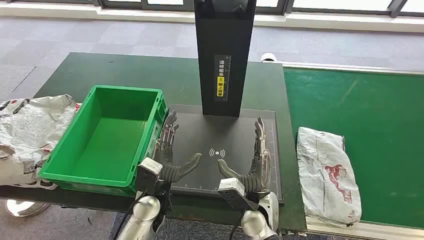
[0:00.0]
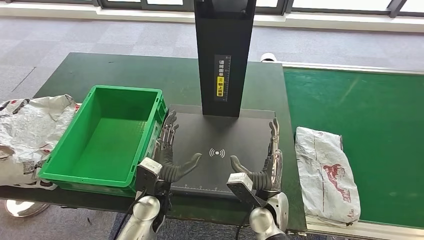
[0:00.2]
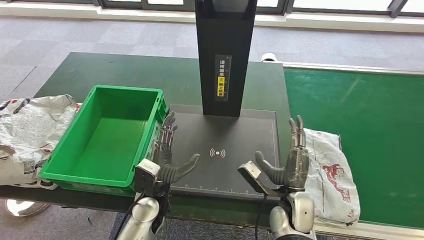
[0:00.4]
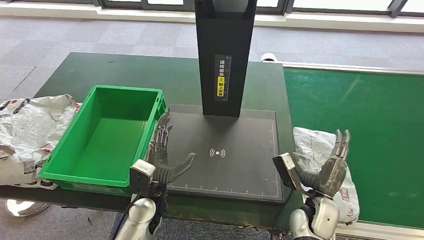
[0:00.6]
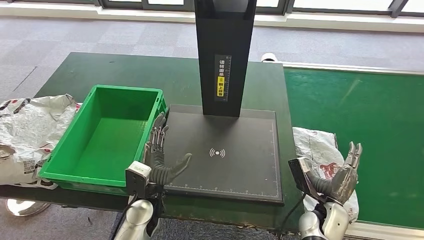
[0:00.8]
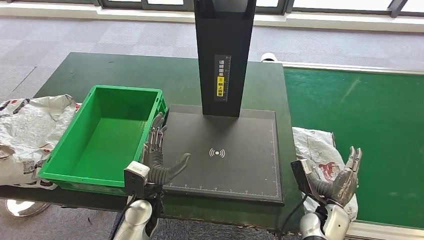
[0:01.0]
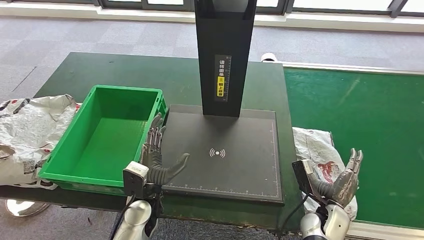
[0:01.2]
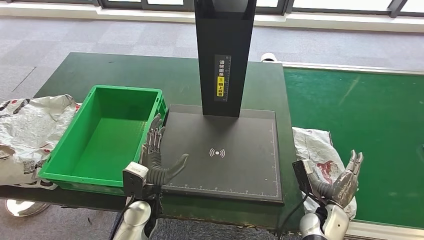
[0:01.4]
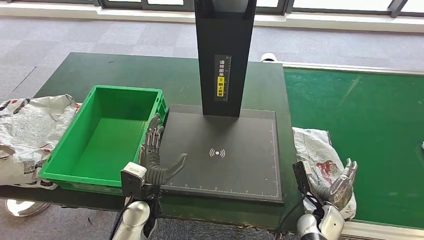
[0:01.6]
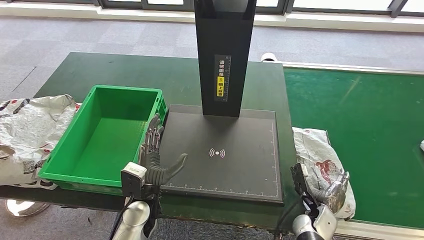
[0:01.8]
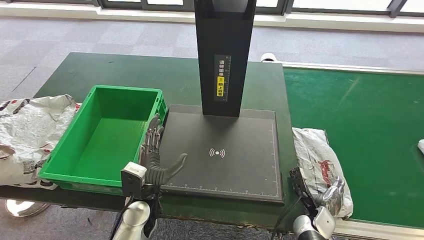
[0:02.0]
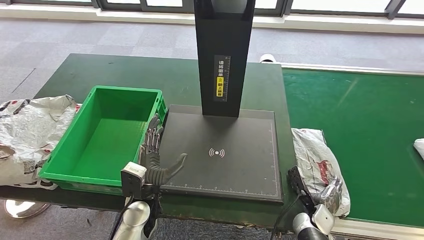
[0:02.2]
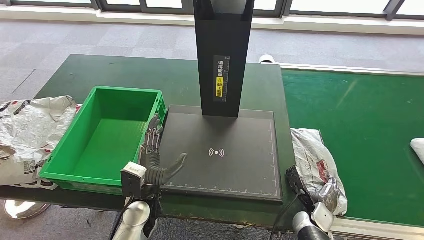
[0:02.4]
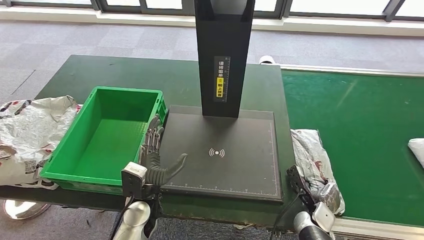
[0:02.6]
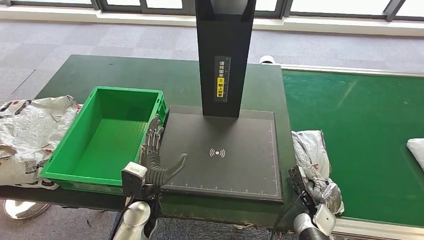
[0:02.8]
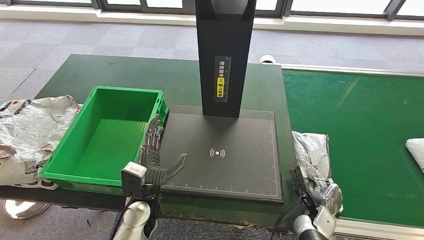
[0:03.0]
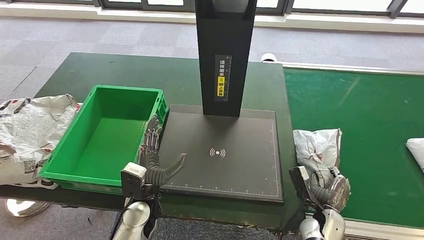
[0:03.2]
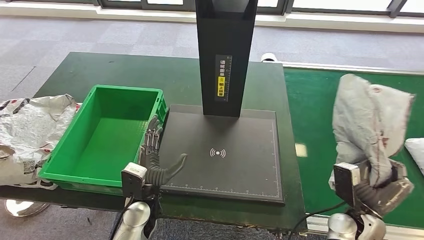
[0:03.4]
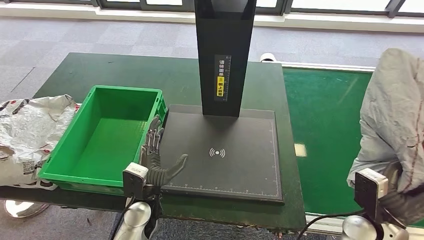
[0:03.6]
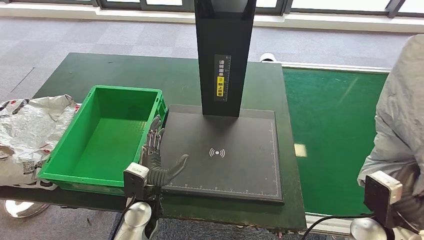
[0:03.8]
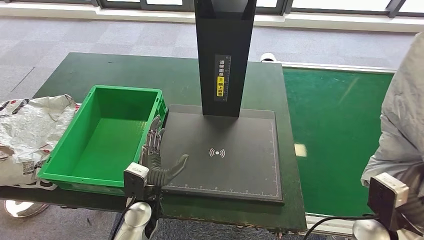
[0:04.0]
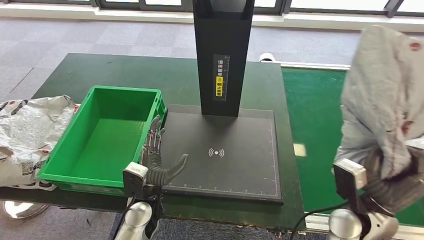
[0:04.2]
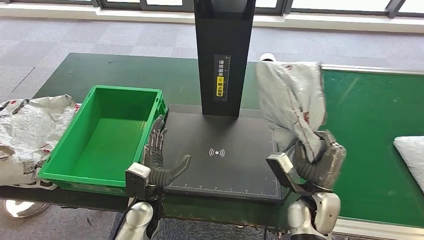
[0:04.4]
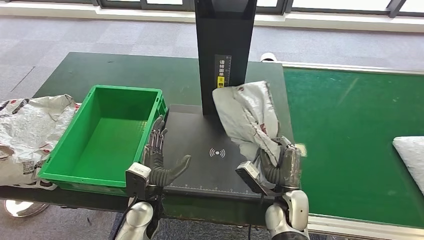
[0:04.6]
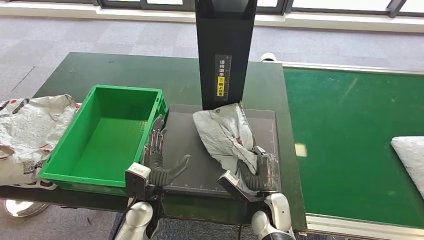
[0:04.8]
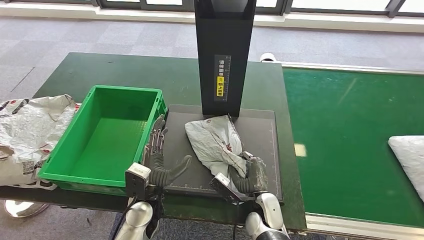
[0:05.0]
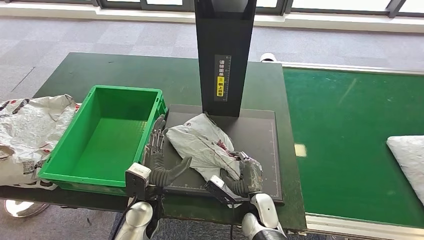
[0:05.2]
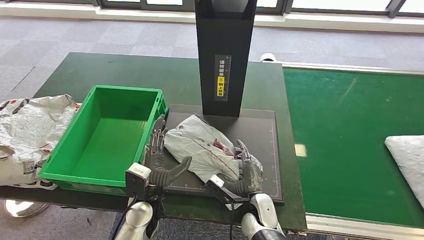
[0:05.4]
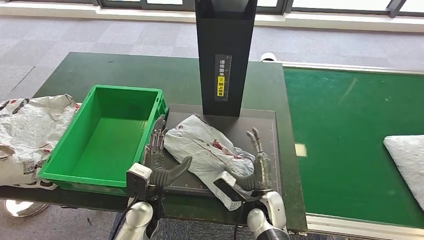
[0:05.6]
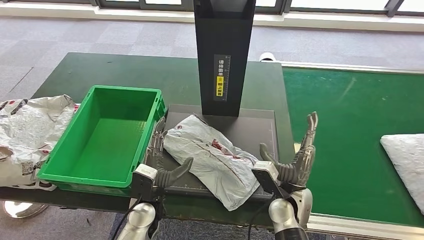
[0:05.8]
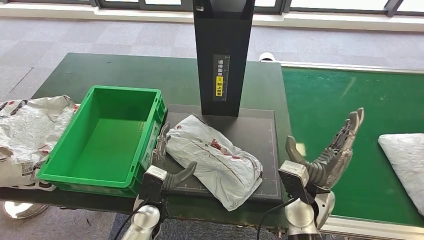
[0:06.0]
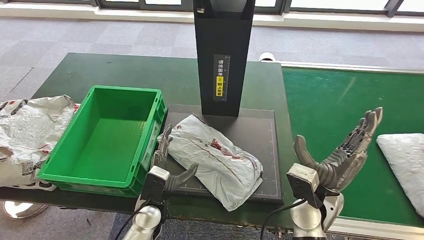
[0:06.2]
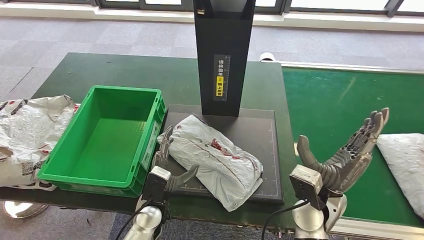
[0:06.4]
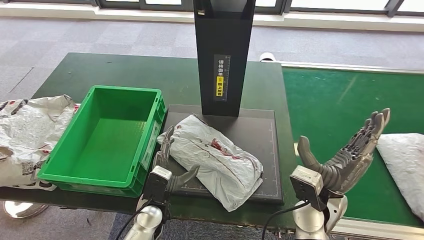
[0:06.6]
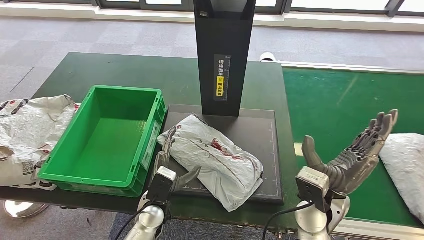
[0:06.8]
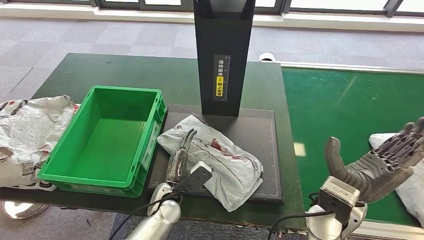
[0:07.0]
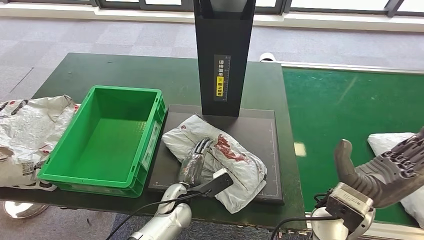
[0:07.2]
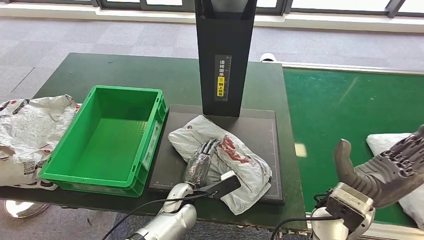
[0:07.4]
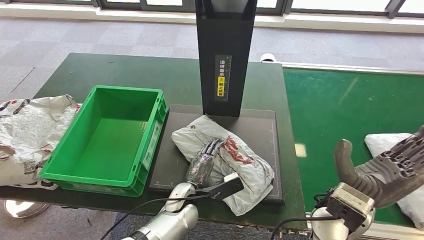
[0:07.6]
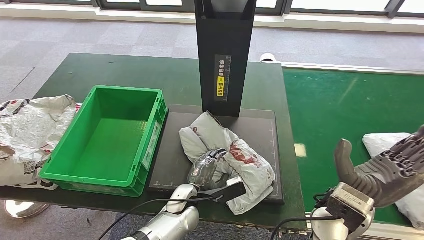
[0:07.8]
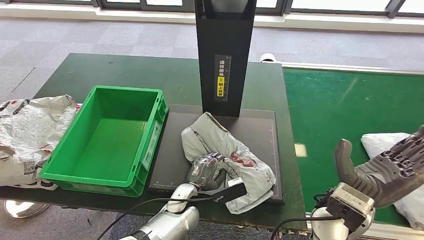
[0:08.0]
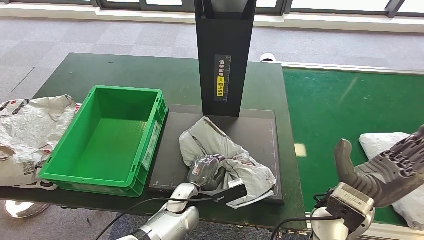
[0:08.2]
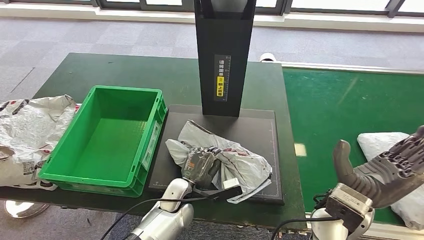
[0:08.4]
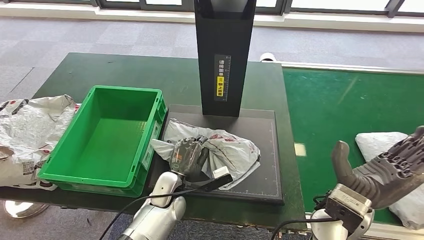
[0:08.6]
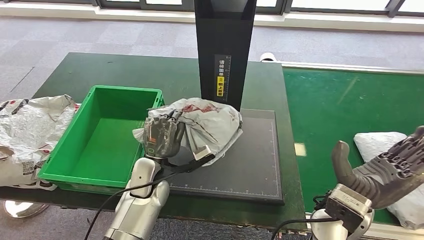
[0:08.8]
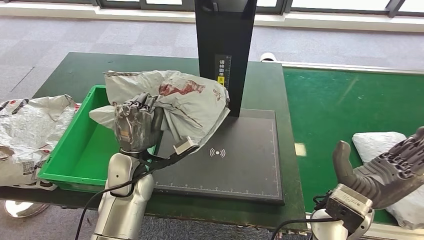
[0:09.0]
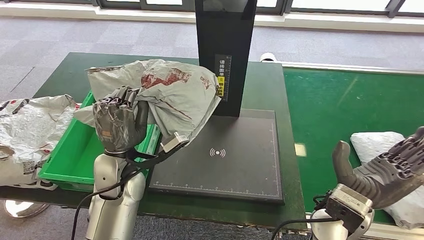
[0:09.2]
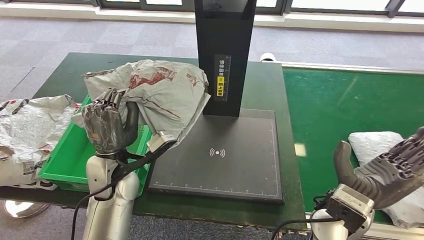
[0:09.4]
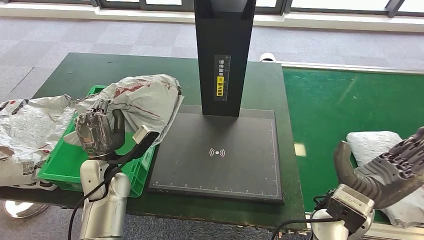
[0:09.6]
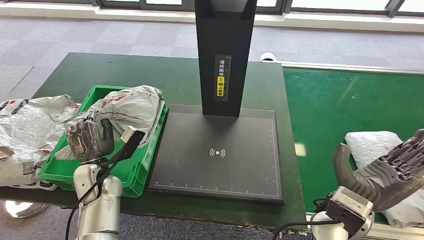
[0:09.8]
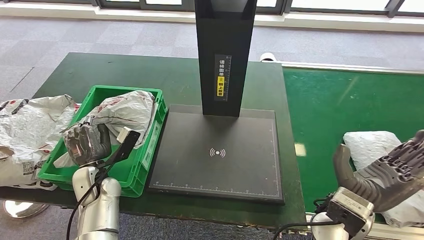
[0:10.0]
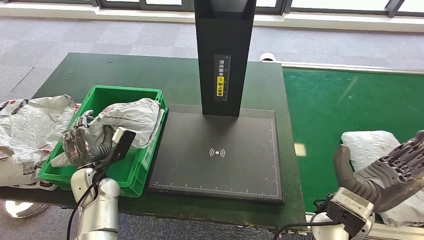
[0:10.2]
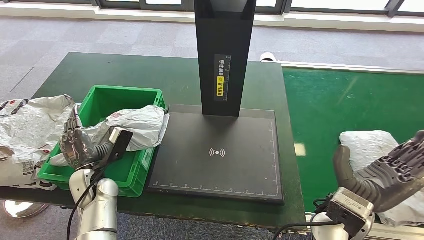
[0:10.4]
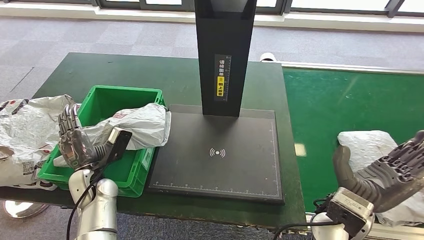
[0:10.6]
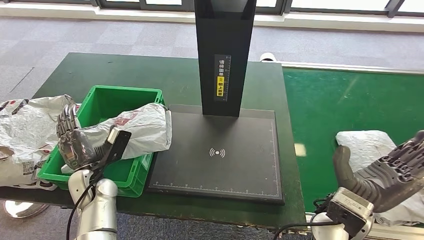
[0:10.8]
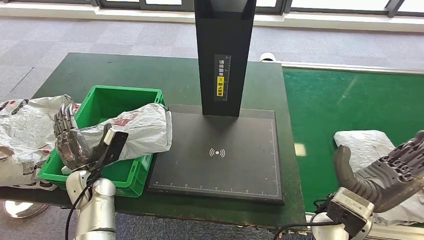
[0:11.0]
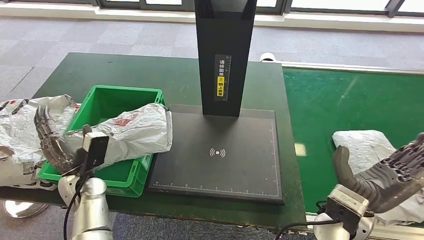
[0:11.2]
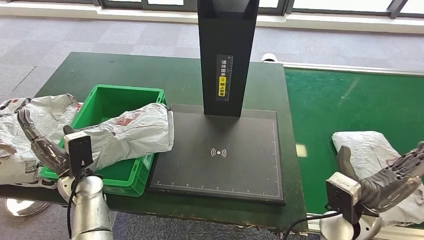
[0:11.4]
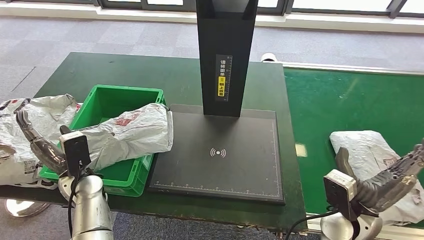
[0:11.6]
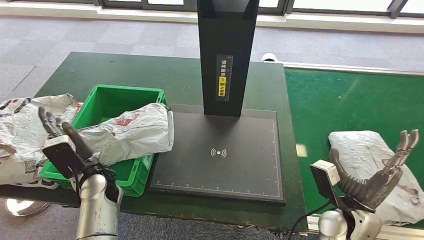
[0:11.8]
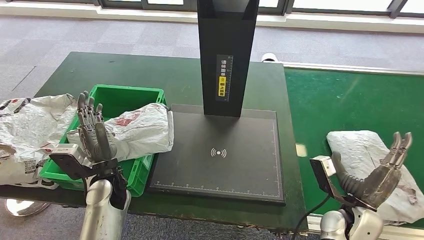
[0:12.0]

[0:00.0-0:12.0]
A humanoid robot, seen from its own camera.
Step, 0:00.0 to 0:04.4: Take the parcel off the conveyor belt.
Step, 0:04.6 to 0:07.4: Place the parcel onto the inbound machine.
Step, 0:07.6 to 0:09.0: Pick up the parcel from the inbound machine.
0:09.0 to 0:10.4: The left hand heads to the left and downward, covering approximately 15 cm.

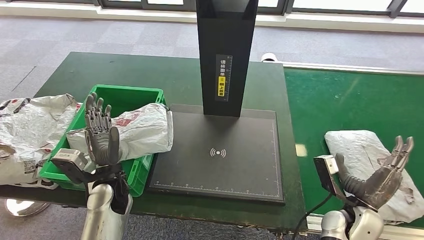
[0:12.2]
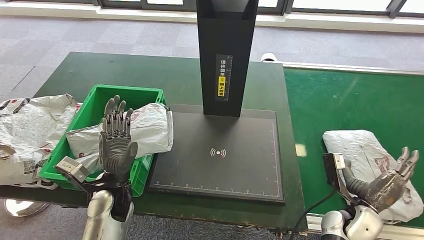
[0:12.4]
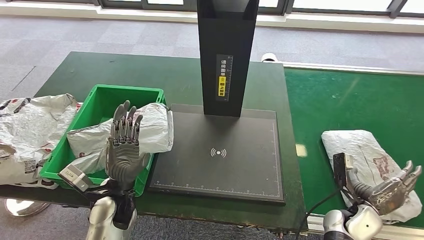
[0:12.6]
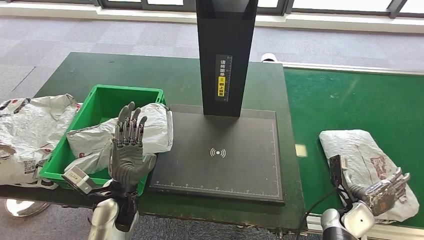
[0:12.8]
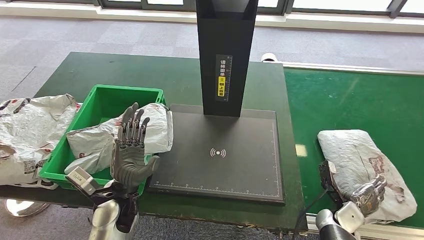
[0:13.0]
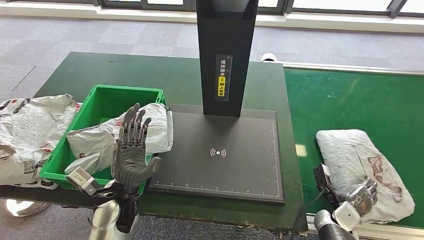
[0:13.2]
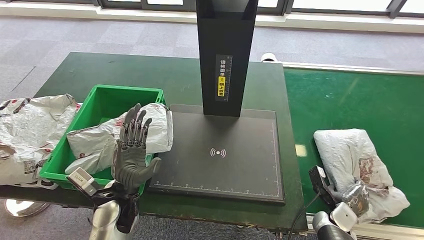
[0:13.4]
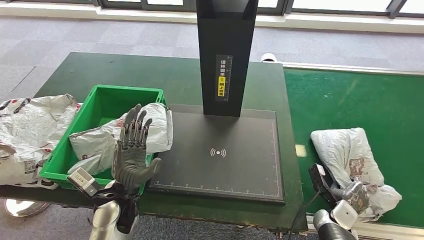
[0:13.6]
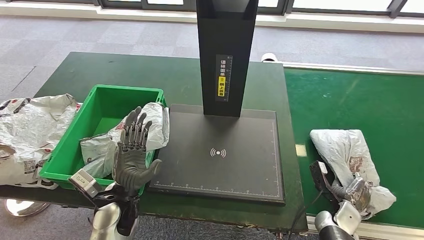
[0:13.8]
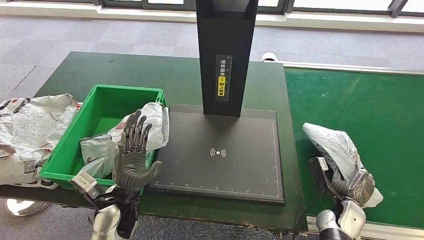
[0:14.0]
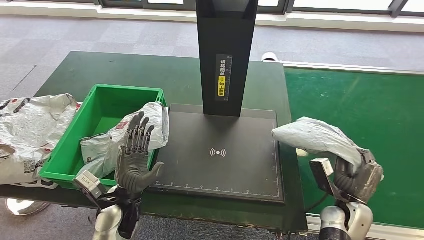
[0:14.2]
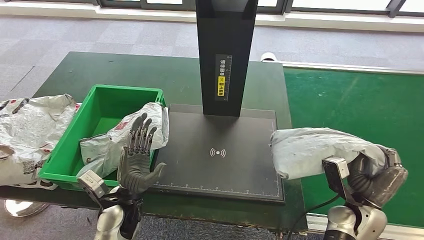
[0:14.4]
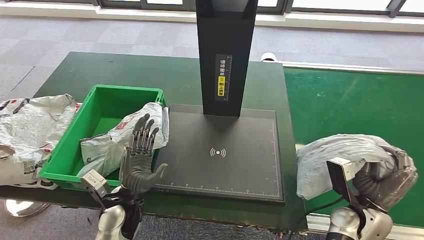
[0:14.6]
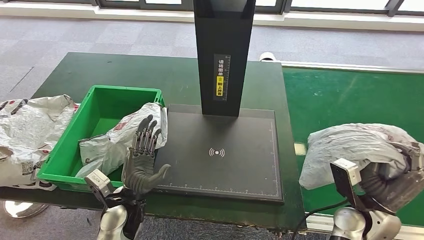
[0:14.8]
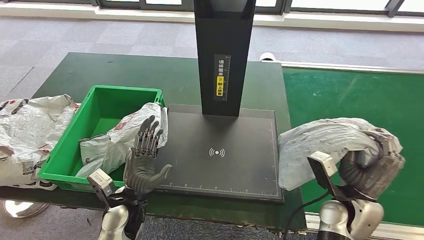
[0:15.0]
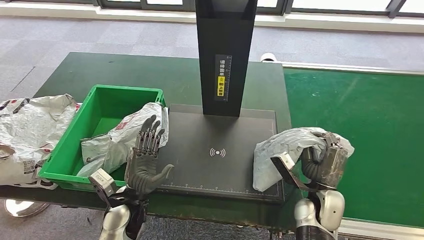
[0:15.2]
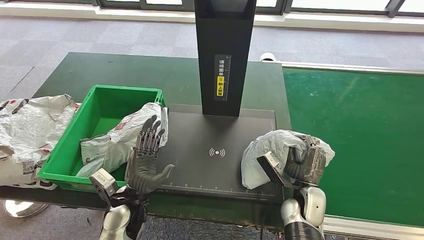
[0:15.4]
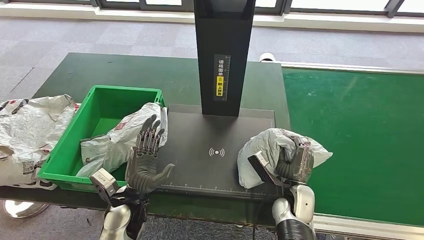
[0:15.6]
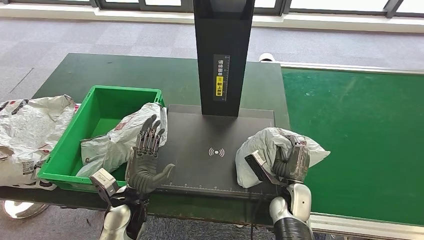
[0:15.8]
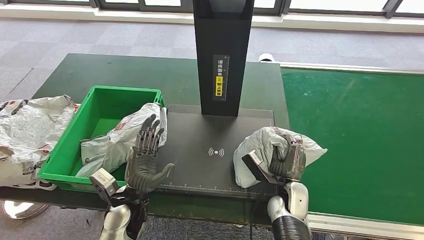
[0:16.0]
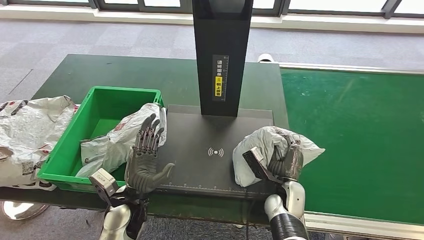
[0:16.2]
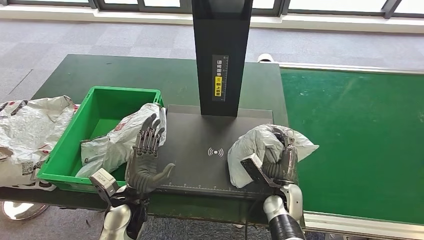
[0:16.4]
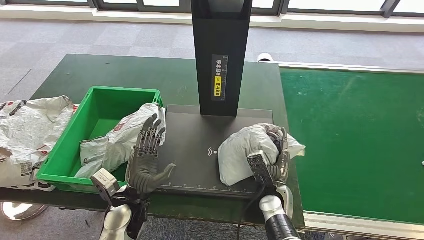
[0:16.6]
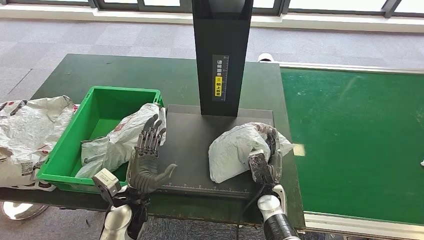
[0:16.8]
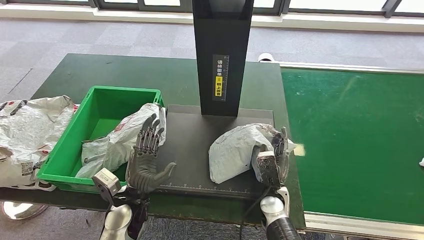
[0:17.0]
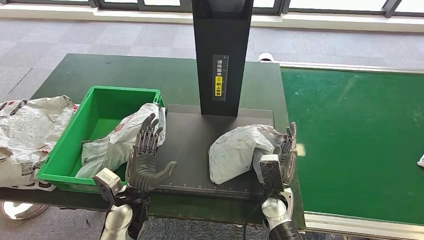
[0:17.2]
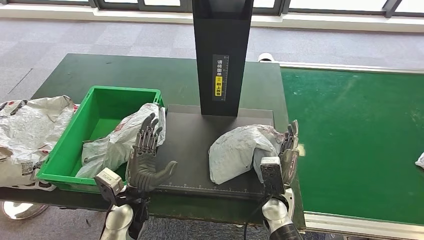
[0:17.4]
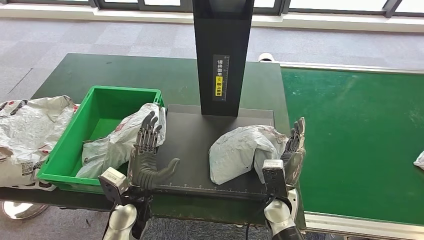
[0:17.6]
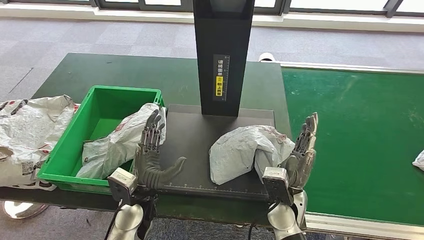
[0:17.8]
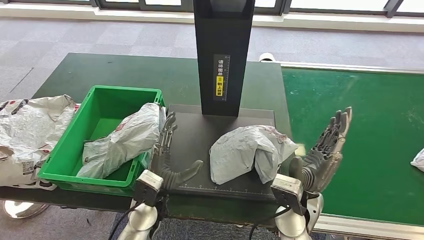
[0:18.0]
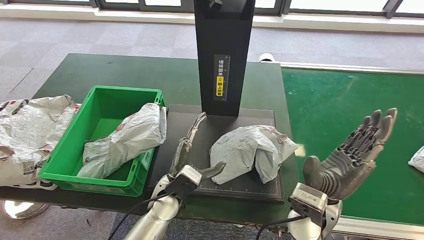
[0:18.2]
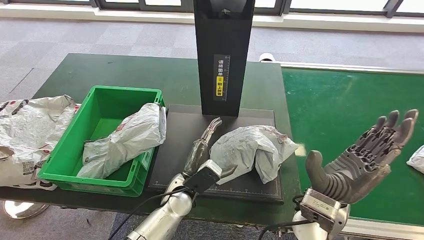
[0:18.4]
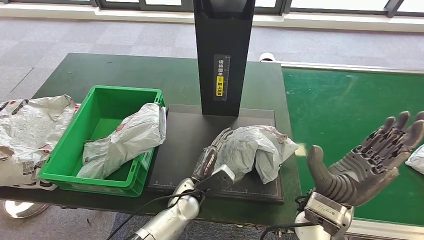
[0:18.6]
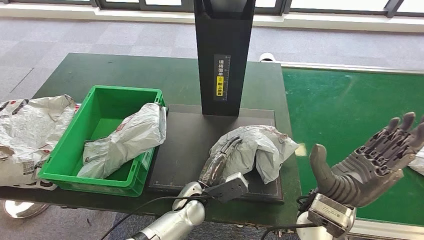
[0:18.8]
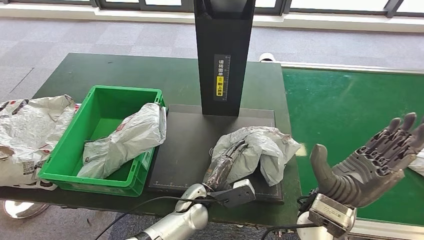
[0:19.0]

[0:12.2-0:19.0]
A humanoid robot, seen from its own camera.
Step, 0:12.8 to 0:14.2: Pick up the parcel from the conveyor belt.
0:12.2 to 0:13.6: The left hand moves some 5 cm; the right hand shifts some 10 cm downward.
0:17.6 to 0:19.0: The left hand moves to the right, approximately 15 cm. The right hand is displaced upward by some 15 cm.
